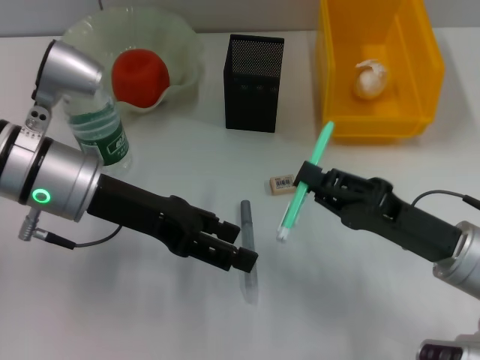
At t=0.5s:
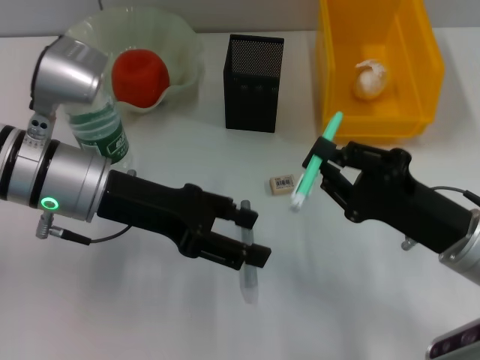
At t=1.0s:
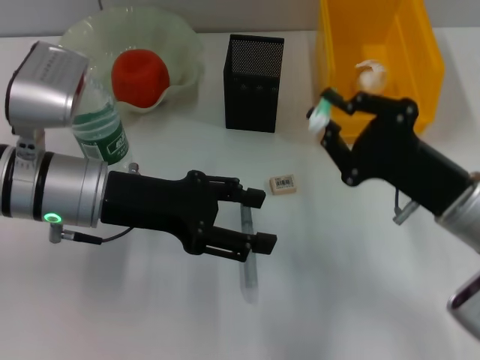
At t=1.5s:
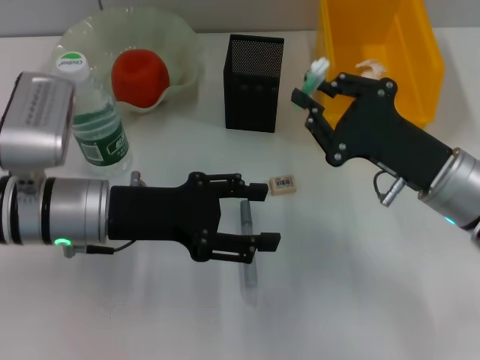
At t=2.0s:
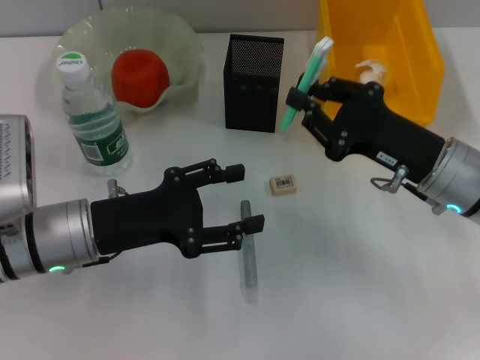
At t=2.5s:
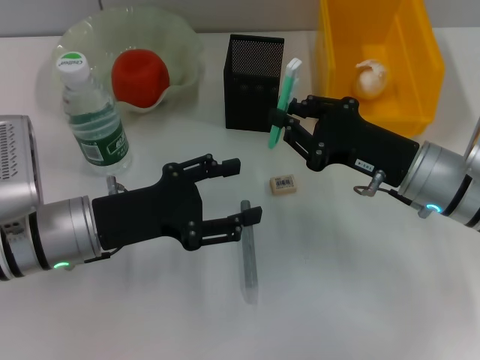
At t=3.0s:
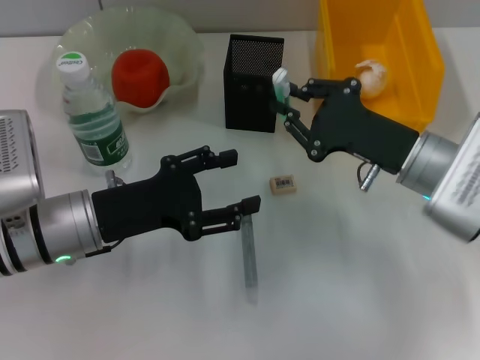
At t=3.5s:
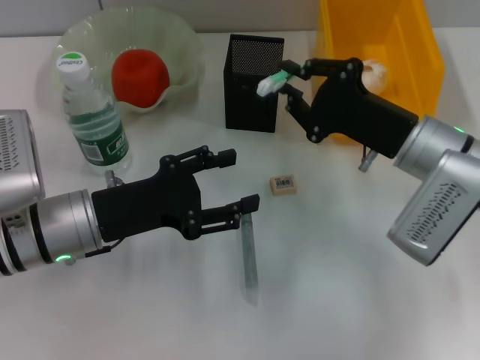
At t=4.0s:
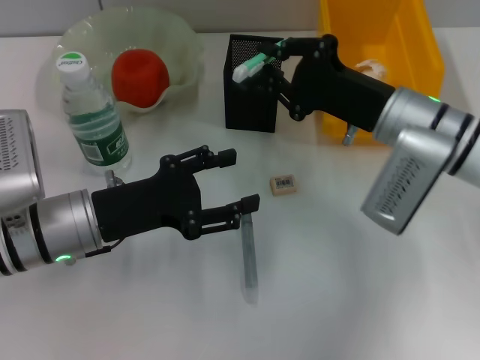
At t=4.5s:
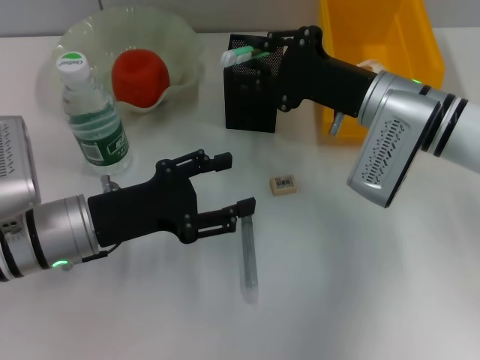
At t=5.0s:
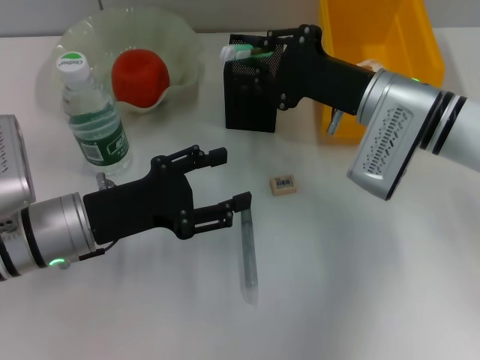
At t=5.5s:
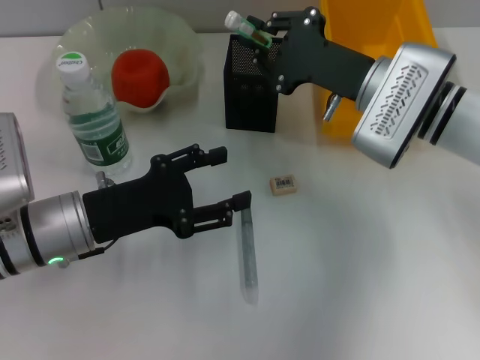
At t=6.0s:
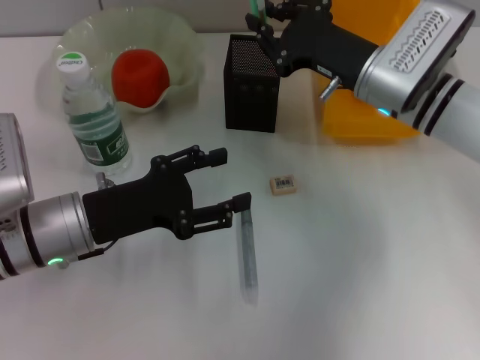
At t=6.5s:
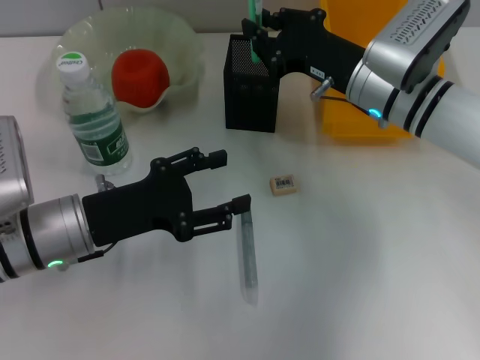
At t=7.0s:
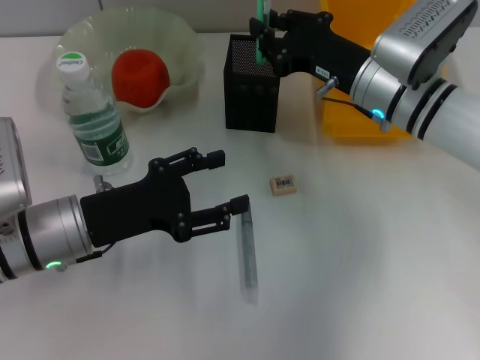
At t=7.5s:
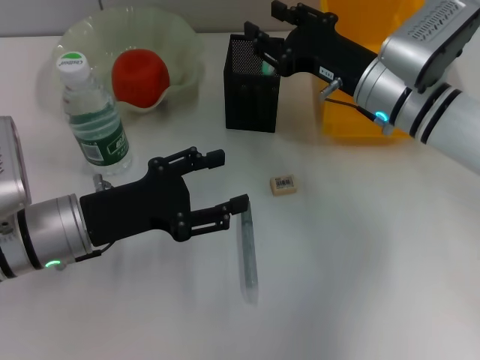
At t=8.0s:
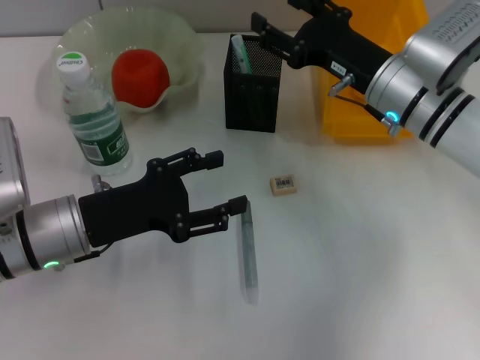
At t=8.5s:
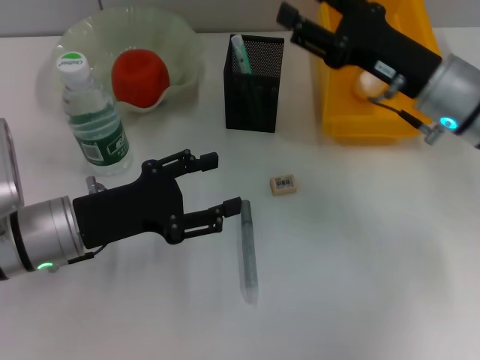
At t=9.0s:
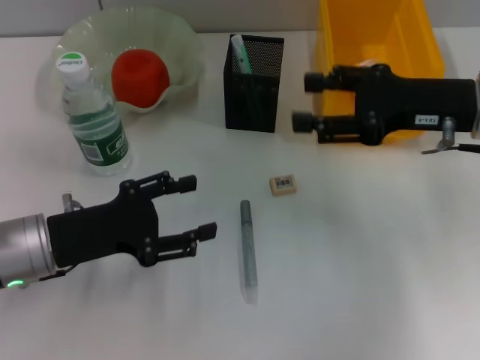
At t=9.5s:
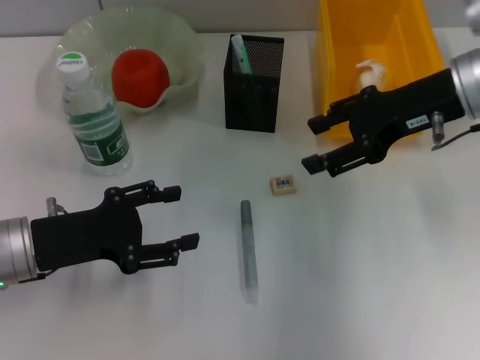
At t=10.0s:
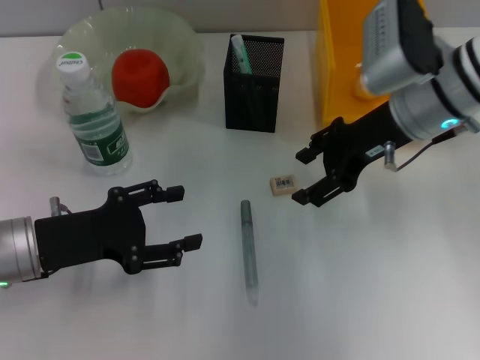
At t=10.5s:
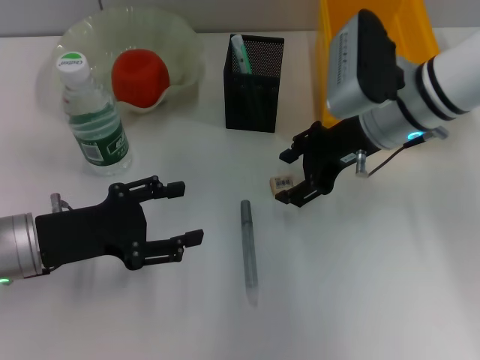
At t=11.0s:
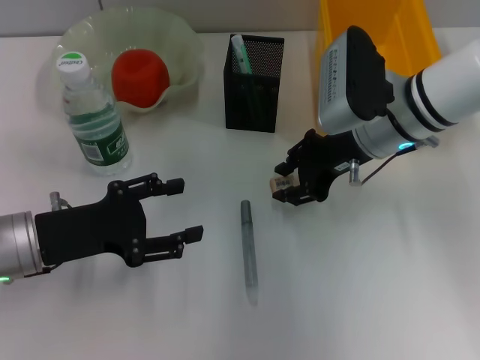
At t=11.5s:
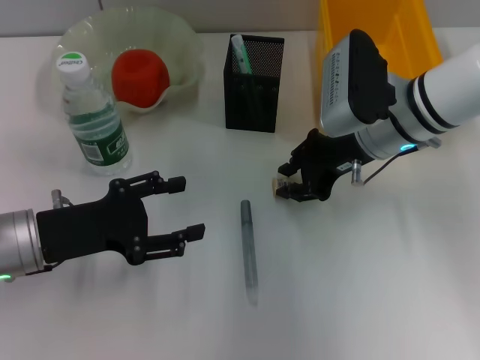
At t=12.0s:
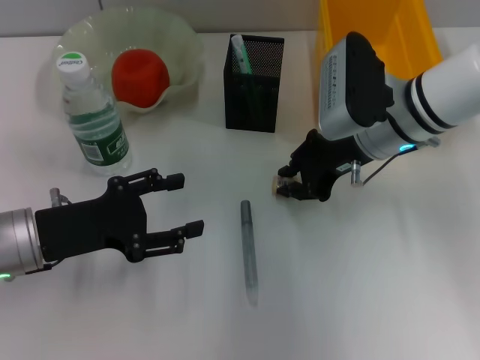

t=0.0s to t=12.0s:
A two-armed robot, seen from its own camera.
Step, t=0.0s to t=7.5s: Place the blue utility knife into the pen holder with the right hand.
Step, t=8.0s to t=11.5s: Grab the eraser with the right hand.
t=0.0s to t=2.0s: The left gripper is displaced downward by approximately 5 cm; the right gripper goes some 5 cm forward.
t=2.0s to t=4.0s: The right gripper travels forward by about 5 cm.
t=6.0s to t=8.0s: The right gripper opens.
t=8.0s to t=10.0s: The right gripper is displaced upward by approximately 5 cm.
t=10.0s to t=12.0s: The right gripper closes up.

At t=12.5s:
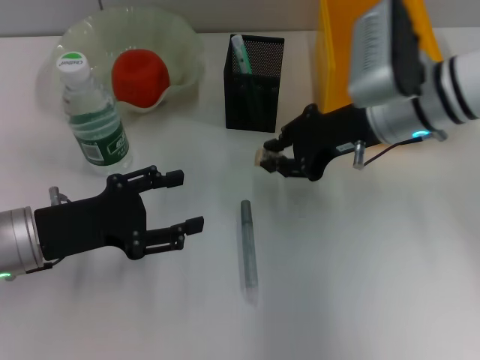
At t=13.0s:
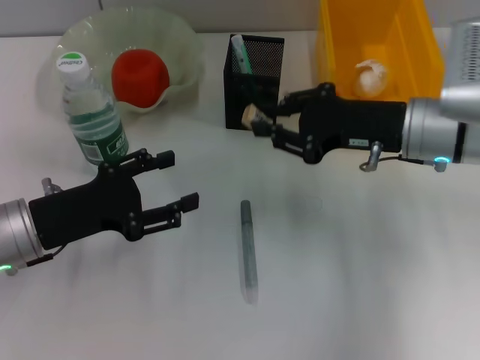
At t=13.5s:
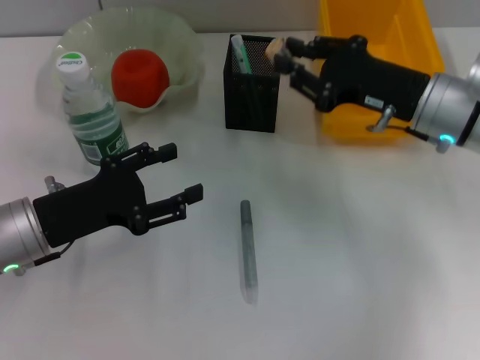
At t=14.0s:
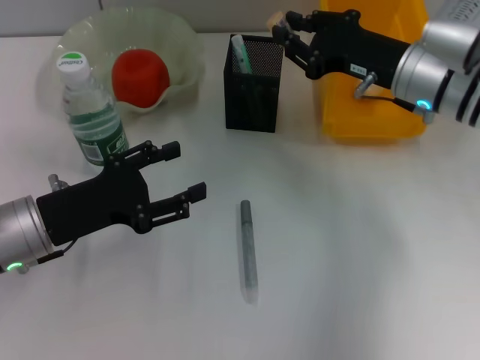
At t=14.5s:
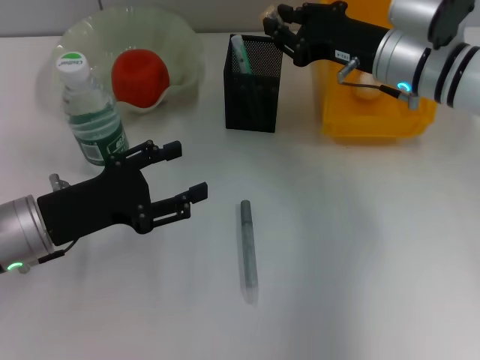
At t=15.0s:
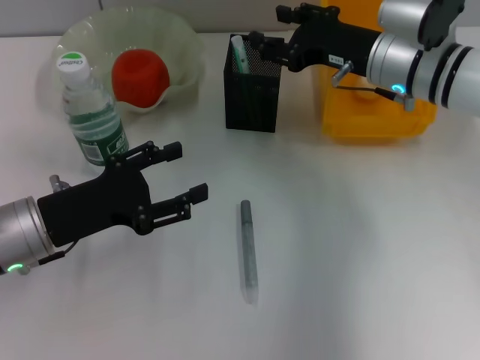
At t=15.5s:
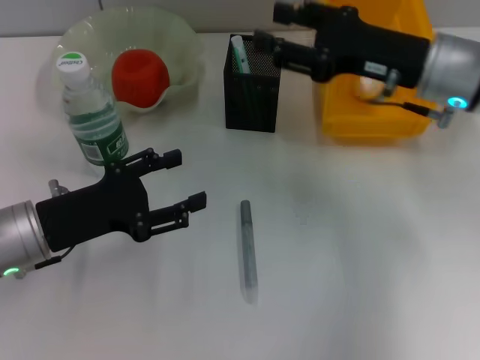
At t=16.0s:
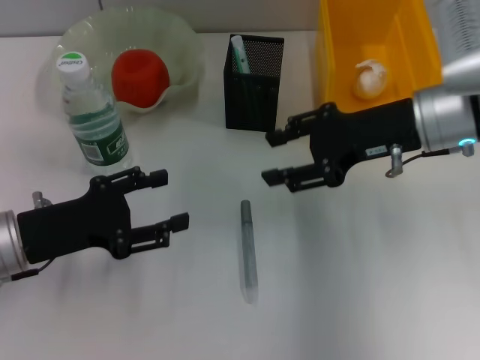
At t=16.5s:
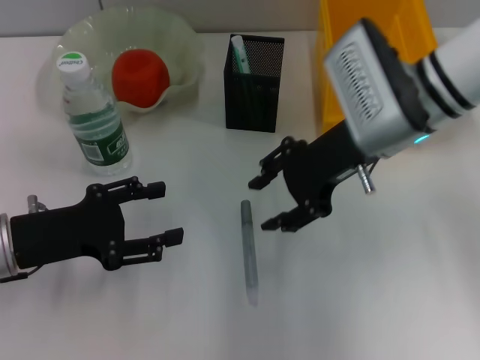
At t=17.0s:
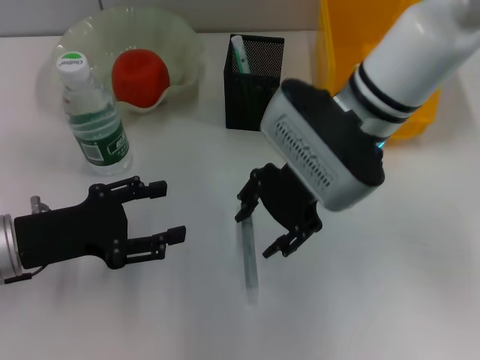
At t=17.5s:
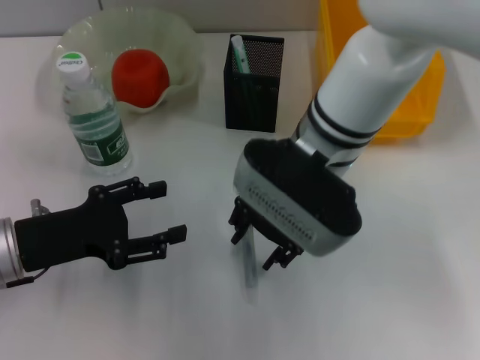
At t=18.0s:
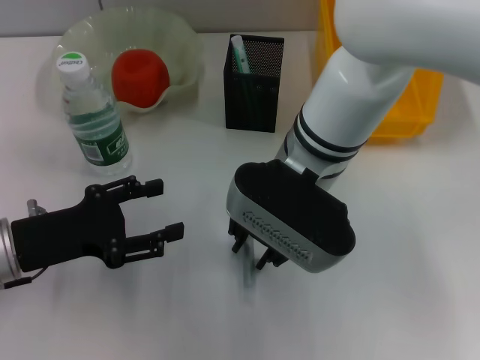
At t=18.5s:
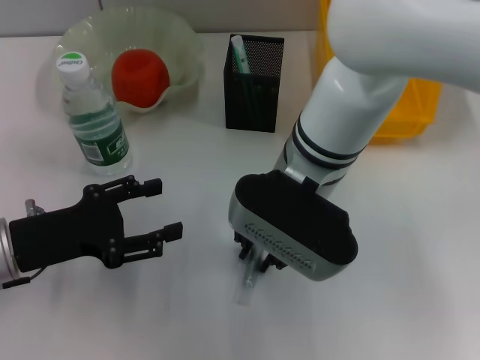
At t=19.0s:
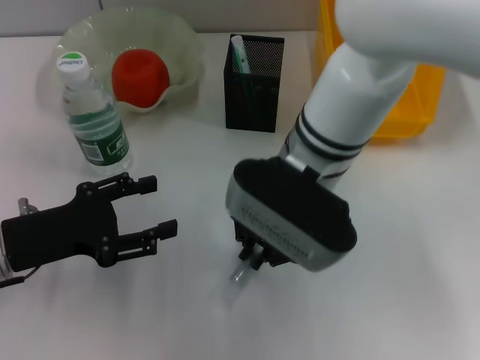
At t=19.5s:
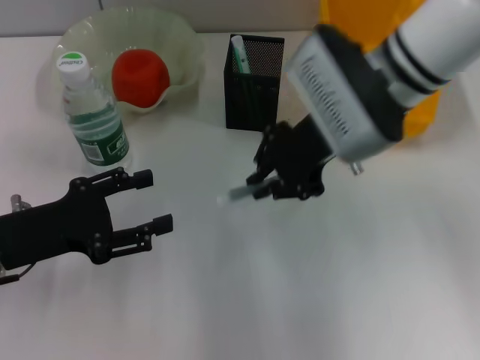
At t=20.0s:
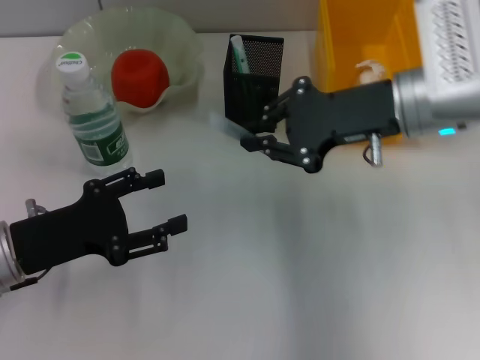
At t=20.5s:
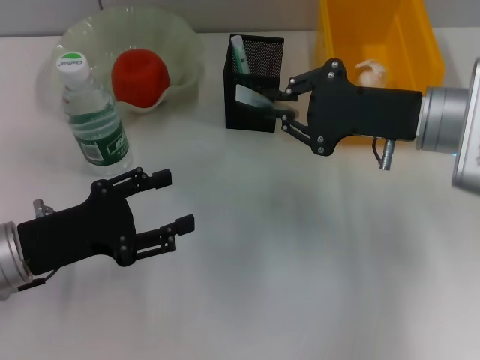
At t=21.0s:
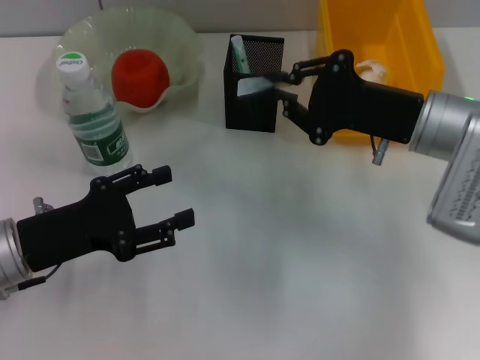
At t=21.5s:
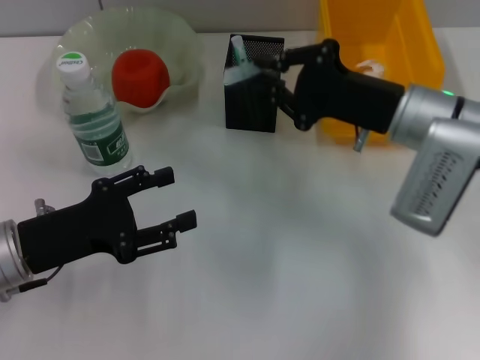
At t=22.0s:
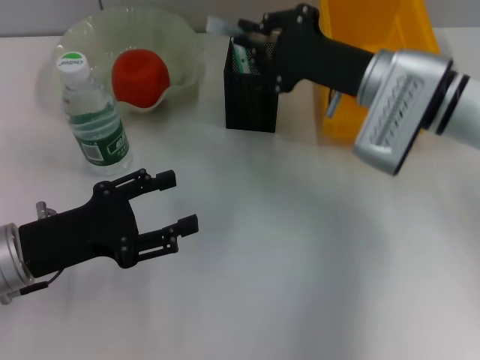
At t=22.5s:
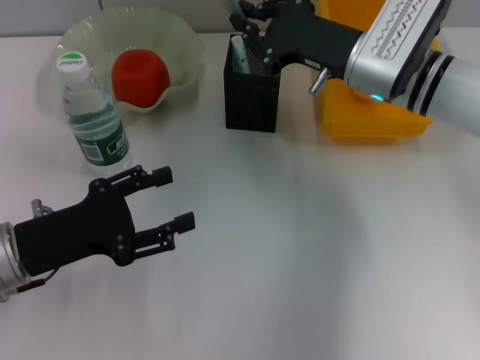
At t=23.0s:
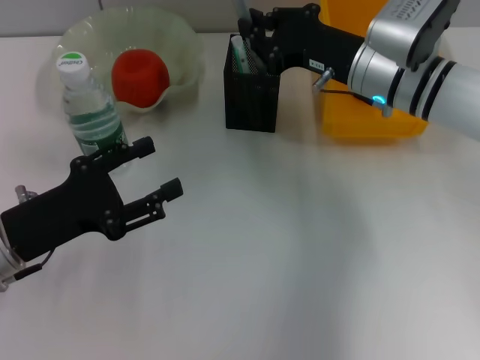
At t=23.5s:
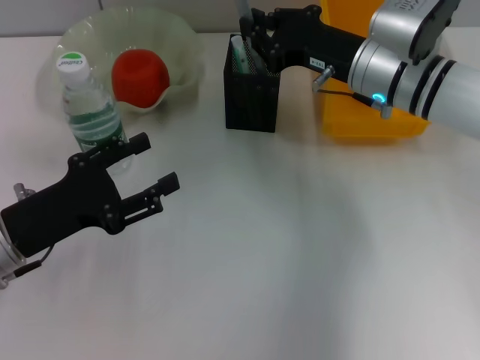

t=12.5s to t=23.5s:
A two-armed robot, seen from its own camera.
Step, t=12.5s to t=14.5s: Put the eraser into the pen holder with the right hand.
Step, t=15.0s to t=18.5s: Grab the gray glue with the right hand.
t=14.5s to t=16.0s: The right gripper is displaced backward by roughly 5 cm, and opens.
t=16.0s to t=18.0s: The right gripper moves to the left, about 15 cm.
t=18.0s to t=20.0s: The right gripper is displaced to the right by about 15 cm, and closes its fingers.
t=20.0s to t=21.5s: The right gripper heads downward, covering about 5 cm.
t=21.5s to t=23.5s: The right gripper shifts about 5 cm forward.

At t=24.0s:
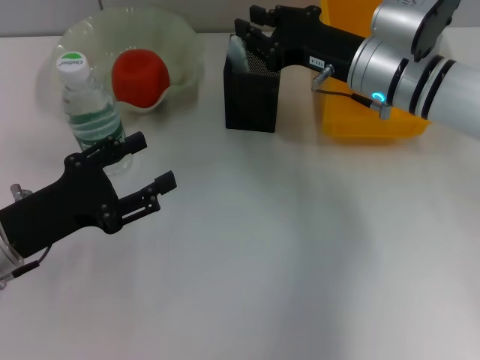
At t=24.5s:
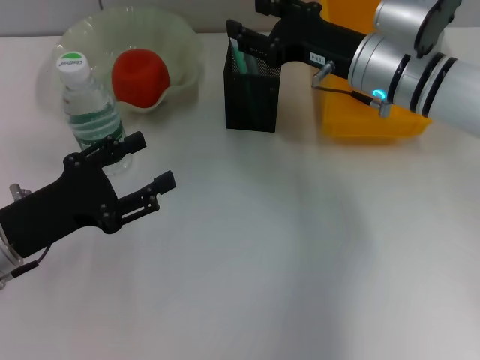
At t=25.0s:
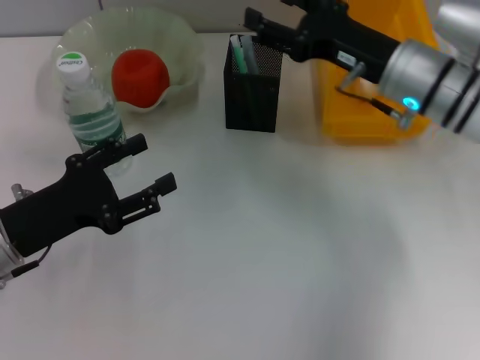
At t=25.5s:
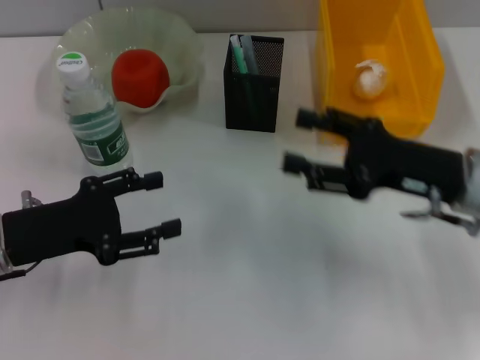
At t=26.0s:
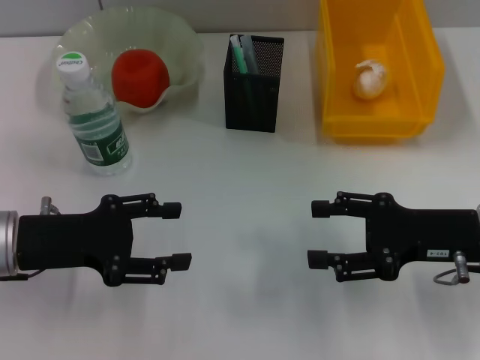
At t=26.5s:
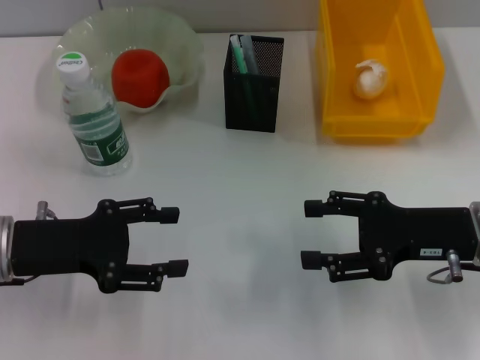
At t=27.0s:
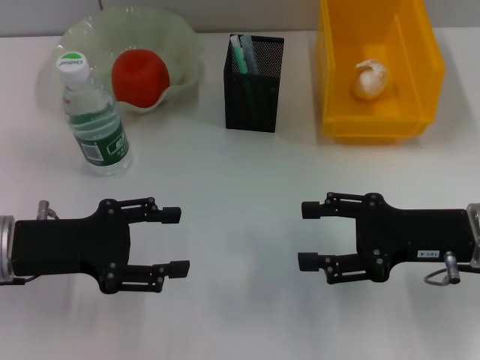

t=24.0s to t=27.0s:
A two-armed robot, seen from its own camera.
t=24.0s to t=25.5s: The right gripper moves backward and to the right, some 15 cm, and opens.
